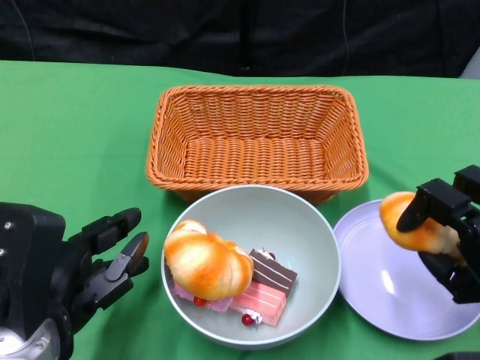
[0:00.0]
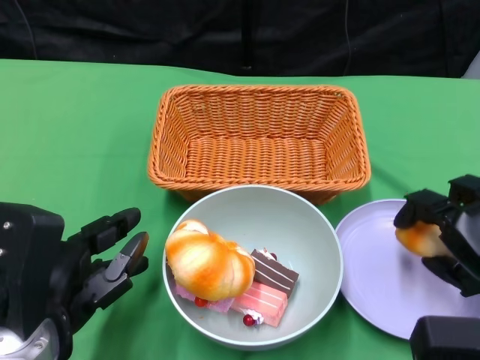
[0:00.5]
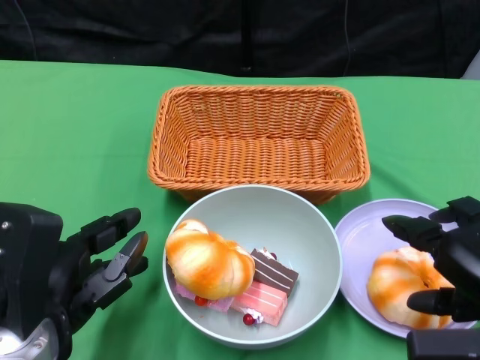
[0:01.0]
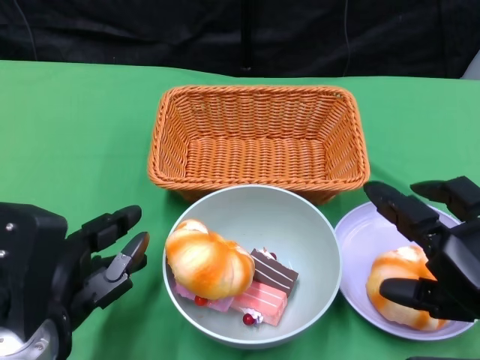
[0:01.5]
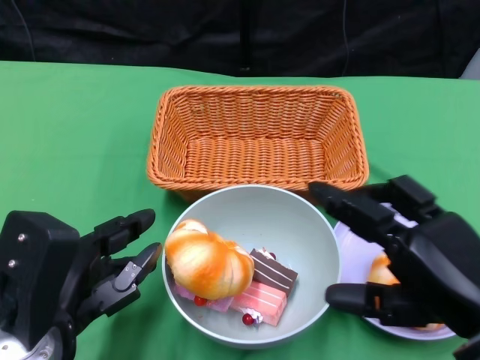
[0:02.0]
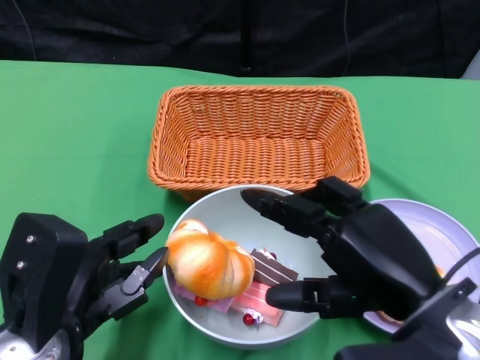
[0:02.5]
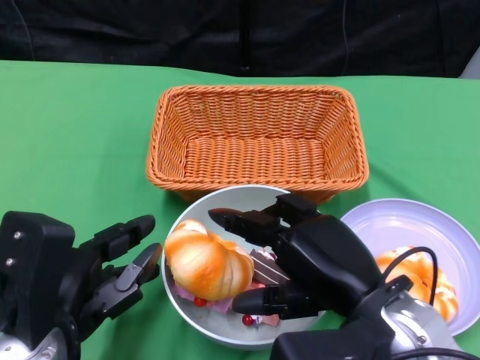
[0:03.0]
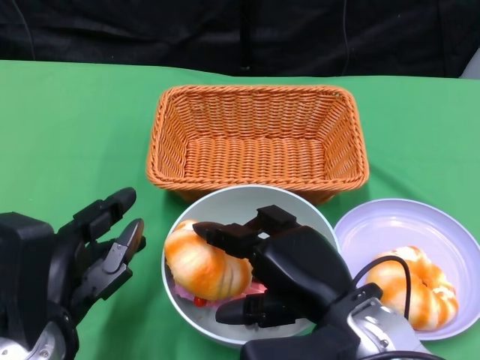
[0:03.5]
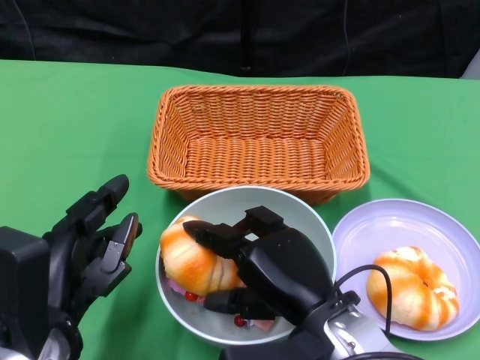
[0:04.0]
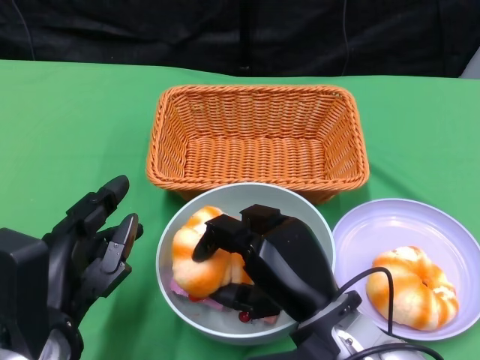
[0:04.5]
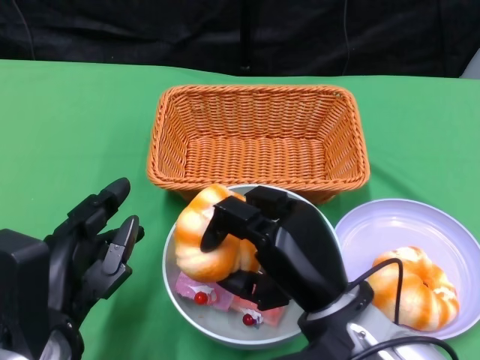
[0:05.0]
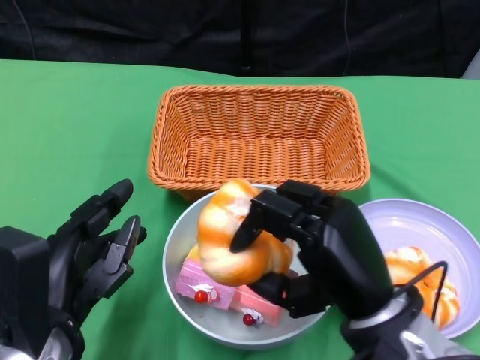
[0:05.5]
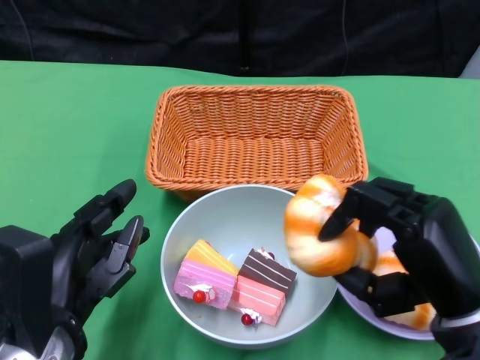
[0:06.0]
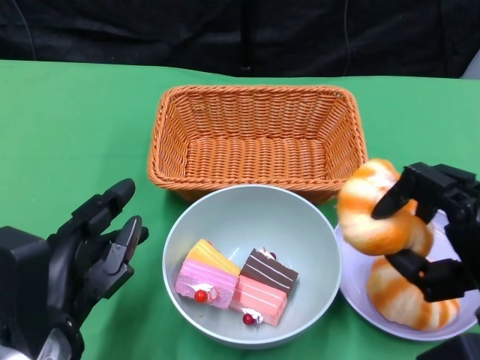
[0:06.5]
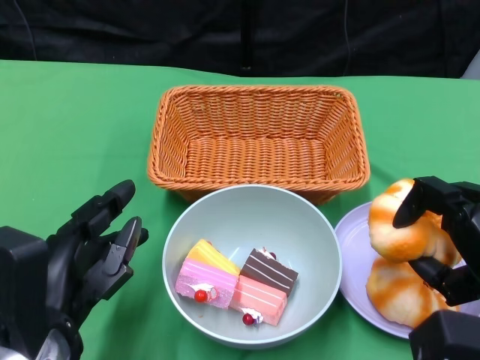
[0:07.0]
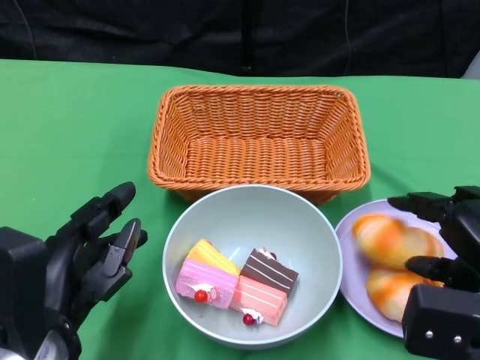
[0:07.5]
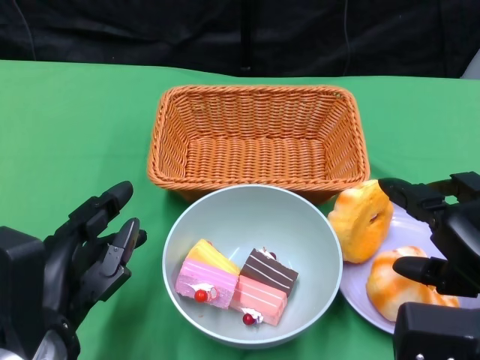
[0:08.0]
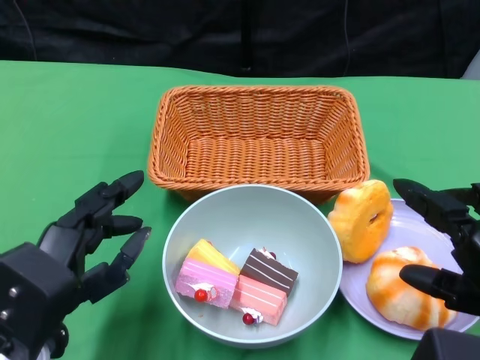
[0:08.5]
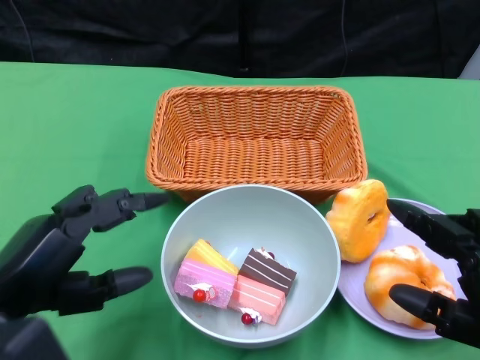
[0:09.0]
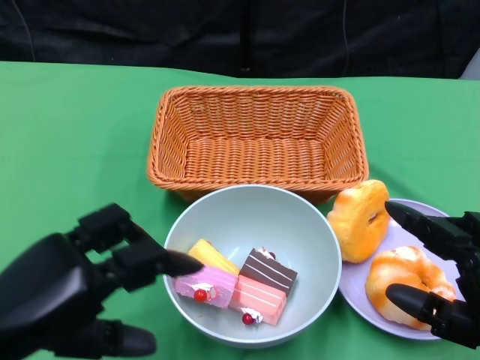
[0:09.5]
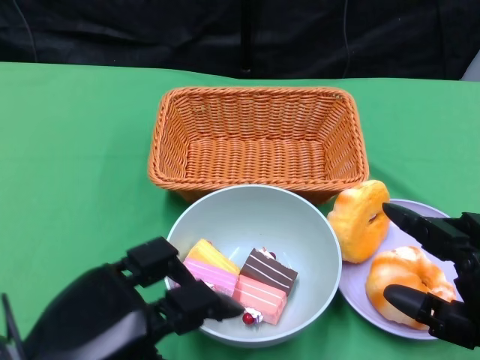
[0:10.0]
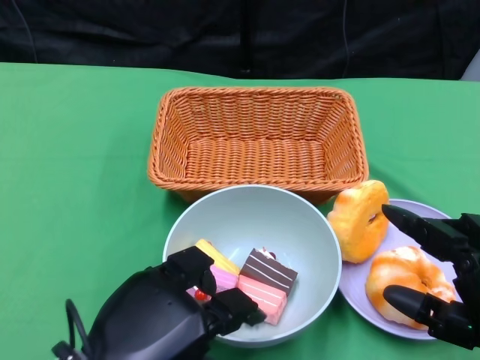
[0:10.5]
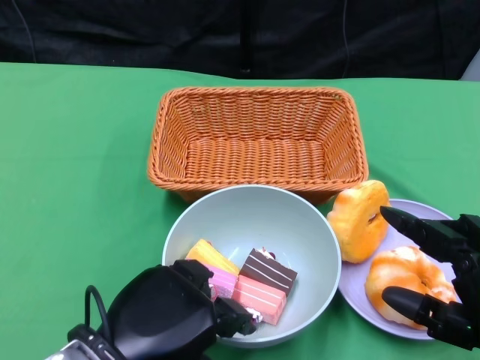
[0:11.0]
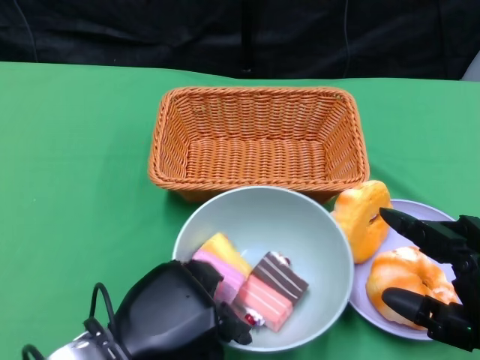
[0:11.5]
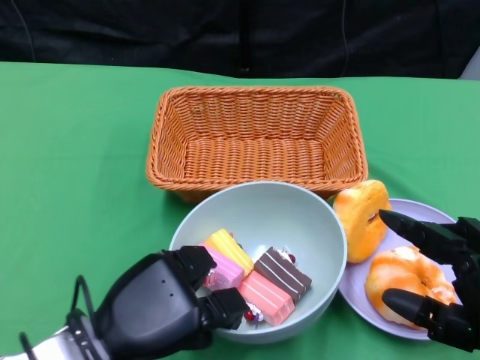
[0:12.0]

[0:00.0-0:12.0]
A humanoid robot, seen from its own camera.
Step, 0:01.5 to 0:08.0: Pick up the bread with the right gripper and place it on the plate.
Step, 0:08.5 to 0:11.5: Grasp the bowl with the left gripper.
0:00.0 to 0:02.0: The right hand goes approximately 5 cm upward.
0:02.0 to 0:04.0: The right hand is displaced to the left and downward by some 15 cm.
0:04.0 to 0:06.0: The right hand goes roughly 10 cm to the right.
0:06.0 to 0:08.0: The right hand ends up roughly 5 cm from where it was.
0:08.0 to 0:10.0: The left hand shifts by approximately 5 cm; the right hand changes place by some 5 cm.
0:10.0 to 0:12.0: The left hand moves downward and forward, approximately 10 cm.

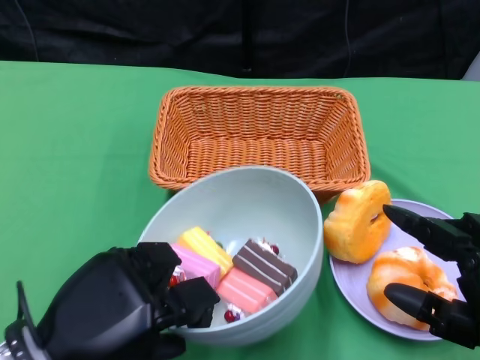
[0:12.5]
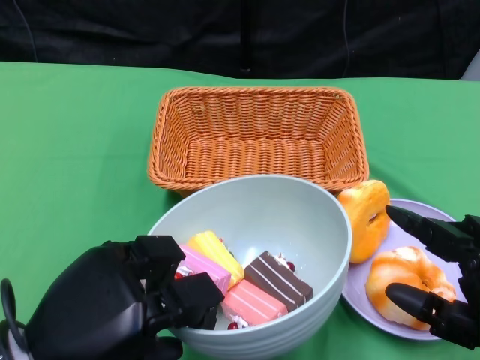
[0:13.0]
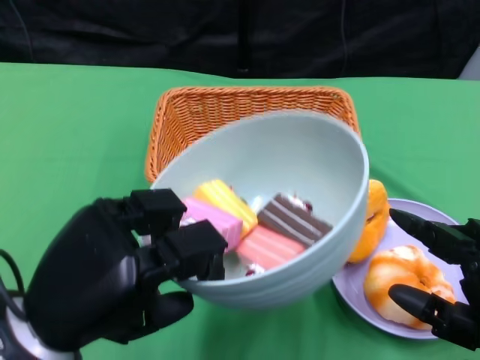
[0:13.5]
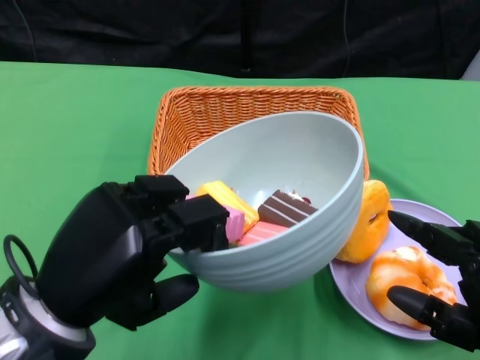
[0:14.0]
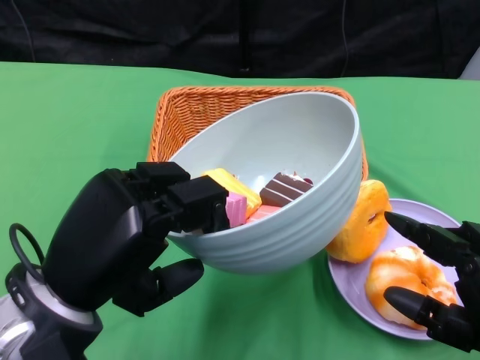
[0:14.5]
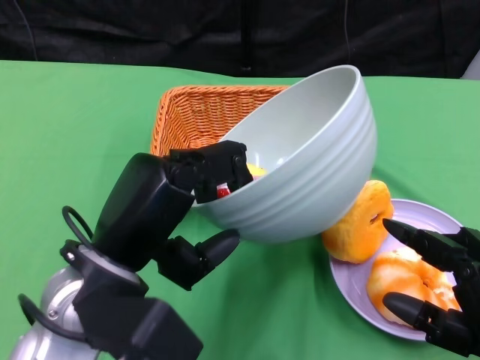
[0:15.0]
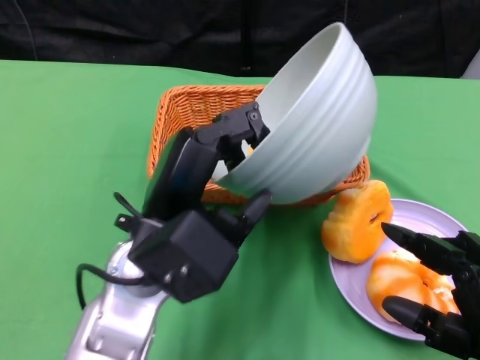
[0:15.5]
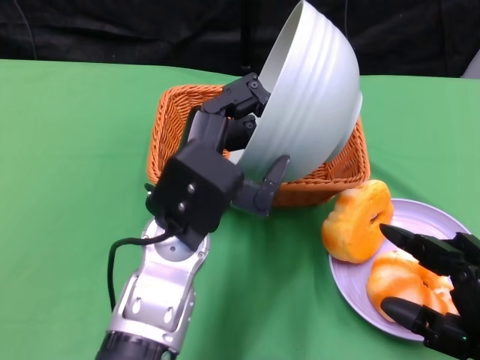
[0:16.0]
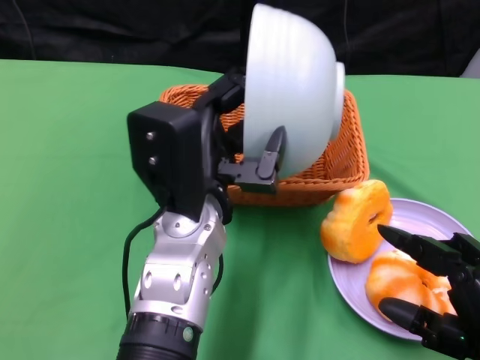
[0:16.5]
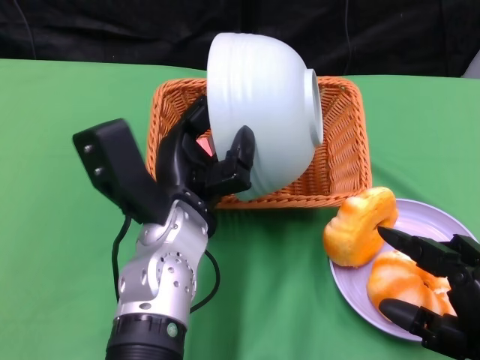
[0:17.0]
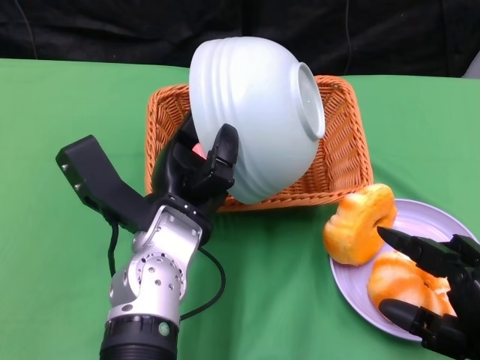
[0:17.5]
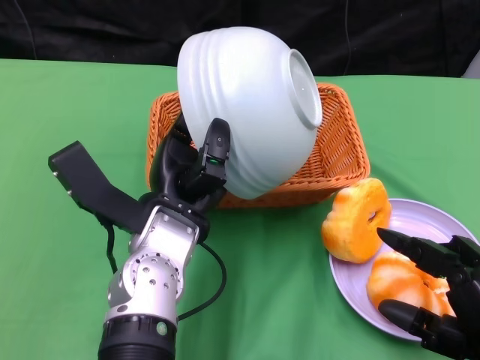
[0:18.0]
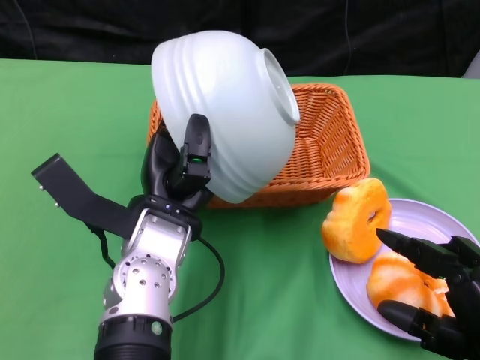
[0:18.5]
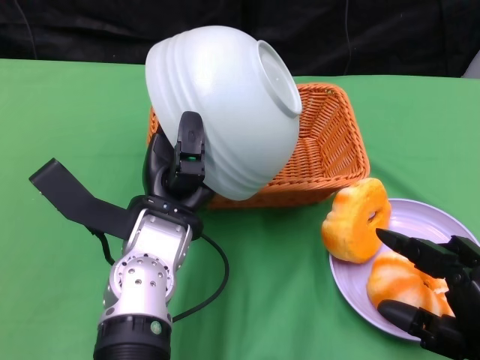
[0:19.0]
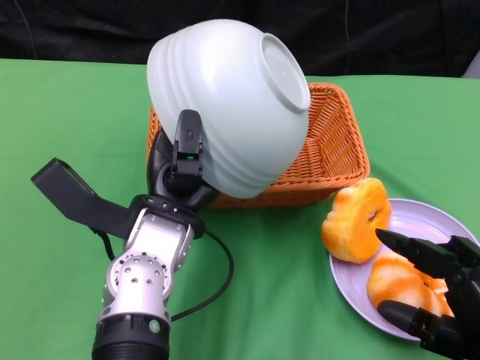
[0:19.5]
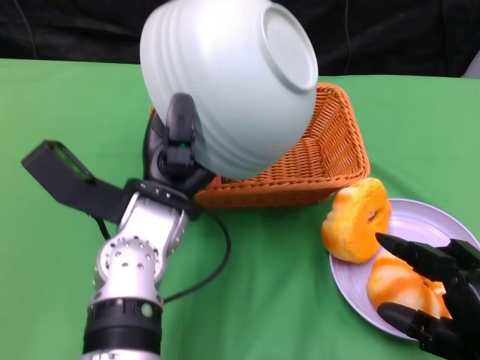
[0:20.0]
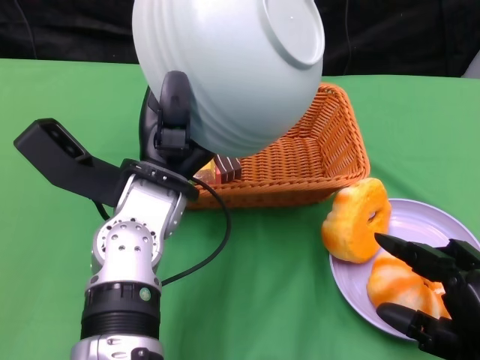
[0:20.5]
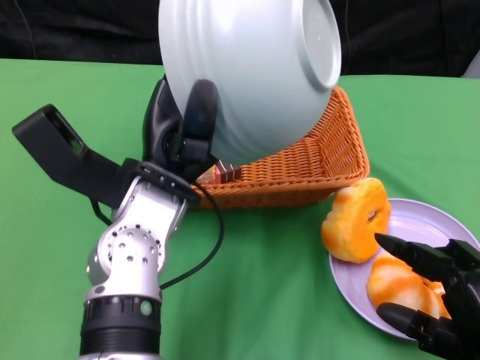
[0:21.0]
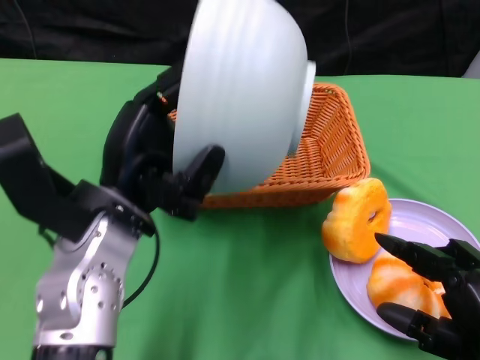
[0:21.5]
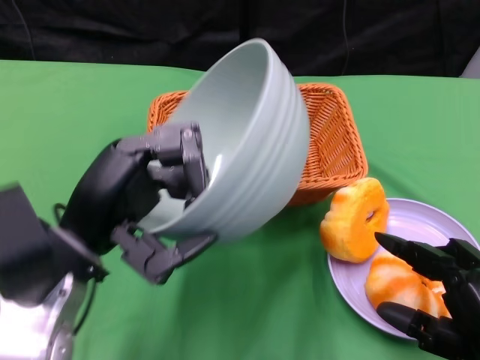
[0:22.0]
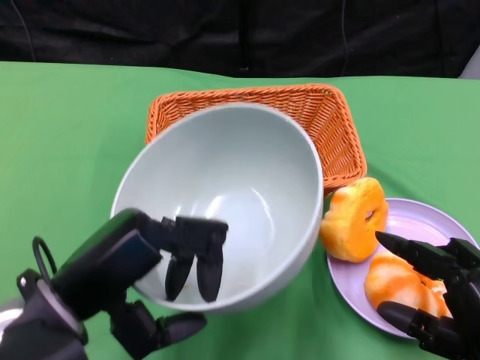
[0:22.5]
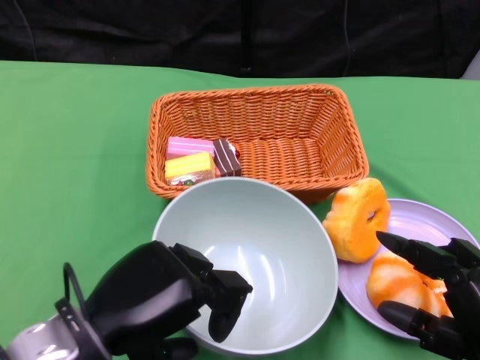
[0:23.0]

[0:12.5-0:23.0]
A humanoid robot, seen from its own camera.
Step, 0:12.5 to 0:19.0: Pour the cake into the basket with the left gripper.
0:12.5 to 0:14.5: The left hand heads upward, covering roughly 5 cm.
0:14.5 to 0:16.5: The left hand goes about 15 cm to the right and forward.
0:21.0 to 0:23.0: The left hand heads backward and to the left, covering some 15 cm.

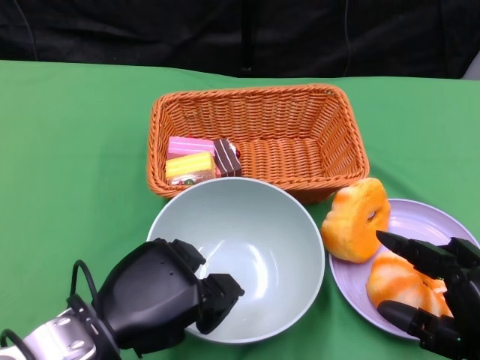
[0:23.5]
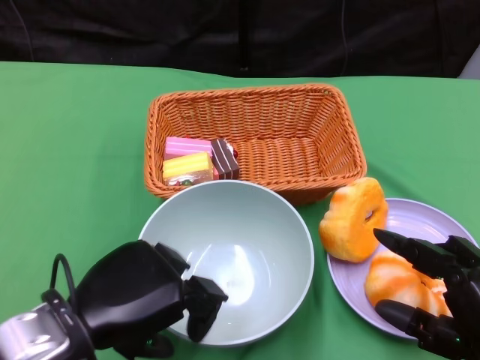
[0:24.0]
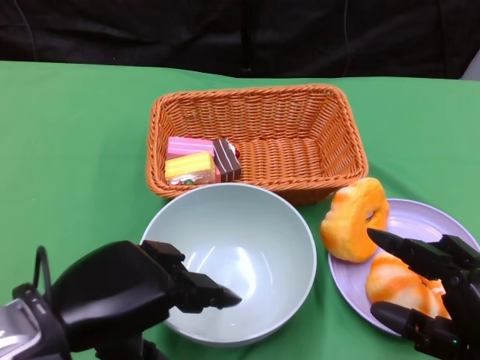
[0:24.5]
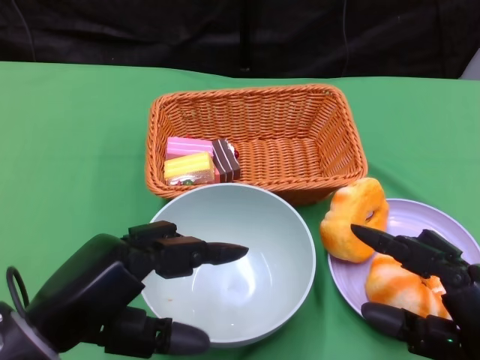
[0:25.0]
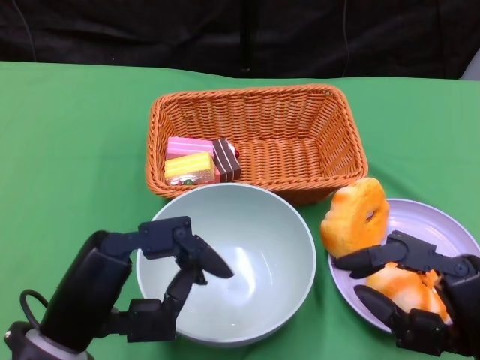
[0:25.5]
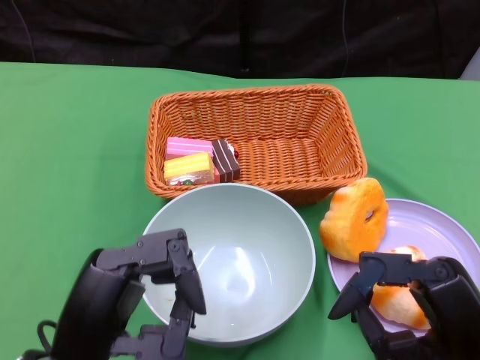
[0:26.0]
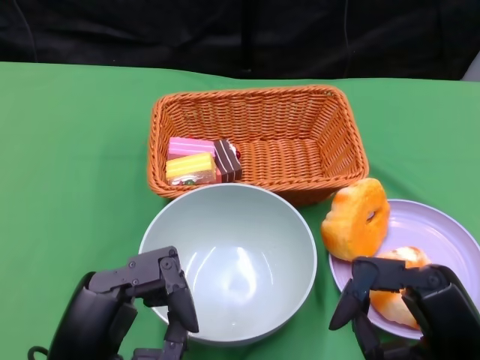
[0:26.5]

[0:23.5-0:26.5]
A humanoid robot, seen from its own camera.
0:23.5 to 0:25.0: The left hand changes place by some 5 cm.
0:25.0 to 0:26.5: The left hand changes place by roughly 5 cm.
